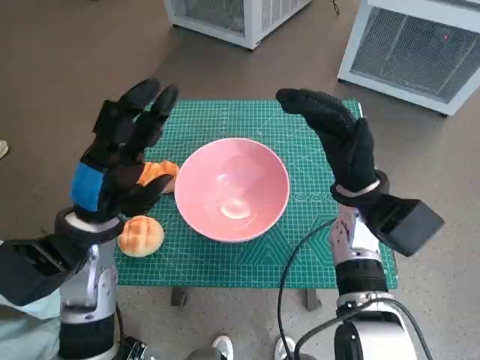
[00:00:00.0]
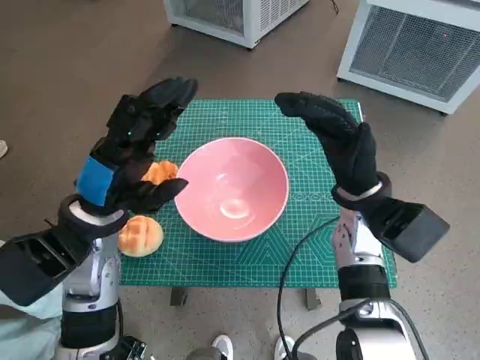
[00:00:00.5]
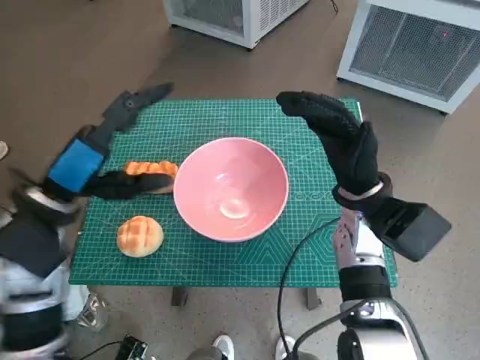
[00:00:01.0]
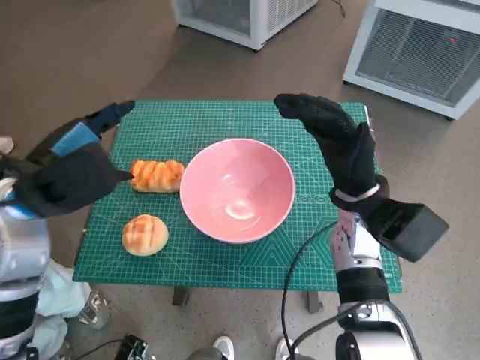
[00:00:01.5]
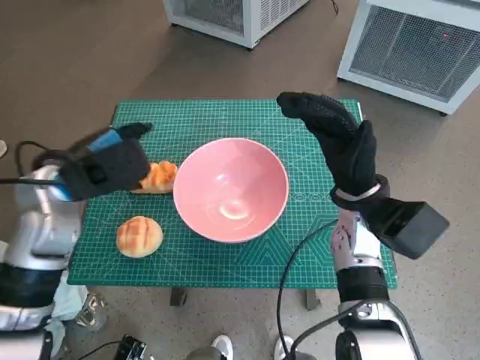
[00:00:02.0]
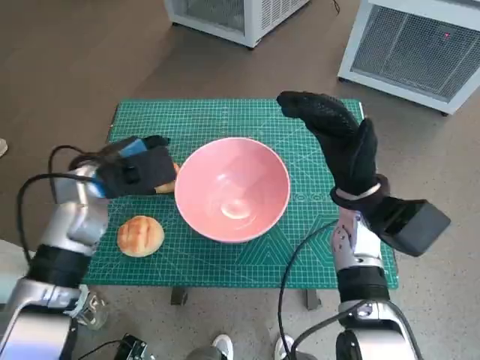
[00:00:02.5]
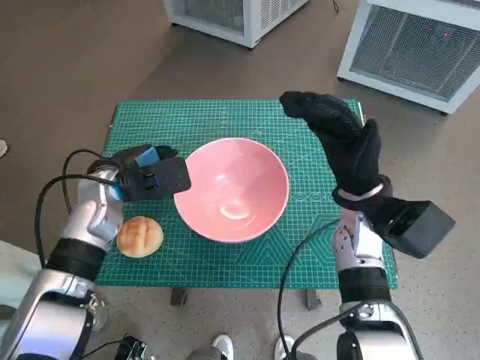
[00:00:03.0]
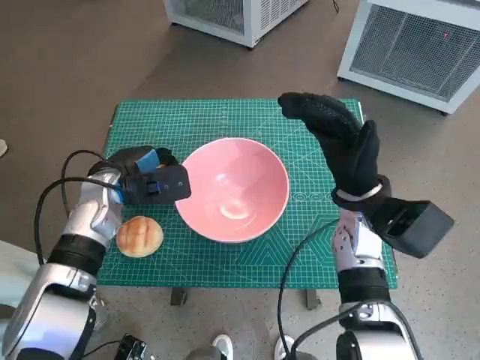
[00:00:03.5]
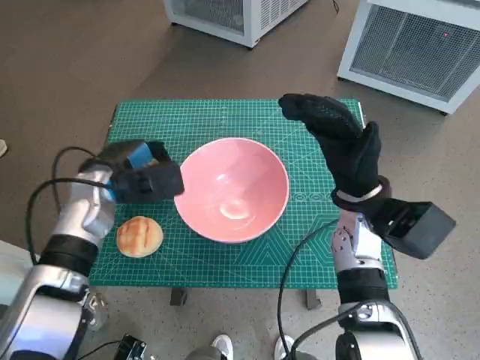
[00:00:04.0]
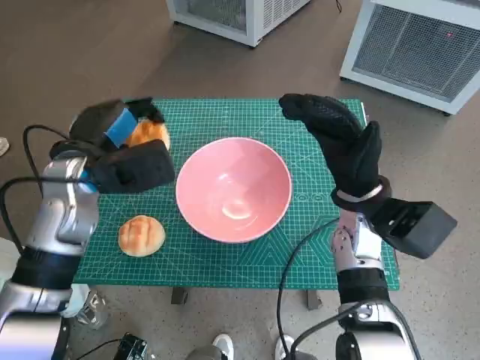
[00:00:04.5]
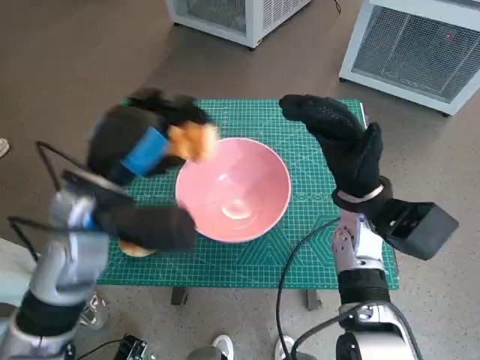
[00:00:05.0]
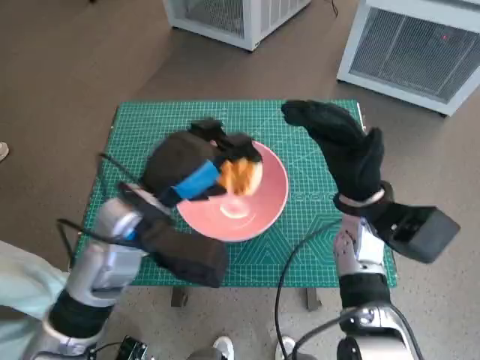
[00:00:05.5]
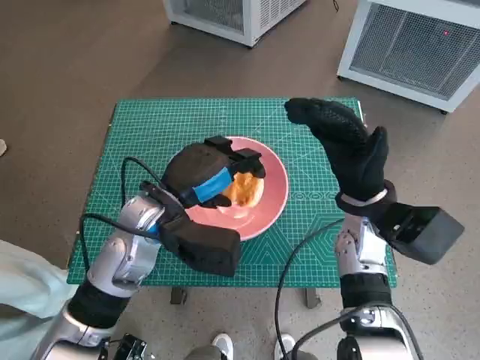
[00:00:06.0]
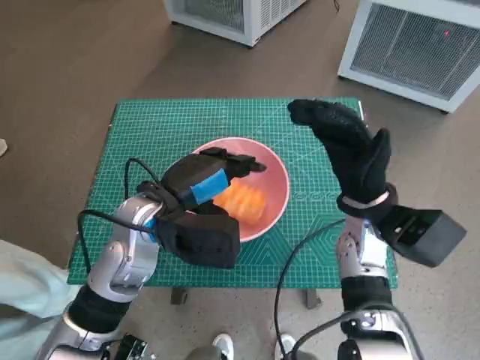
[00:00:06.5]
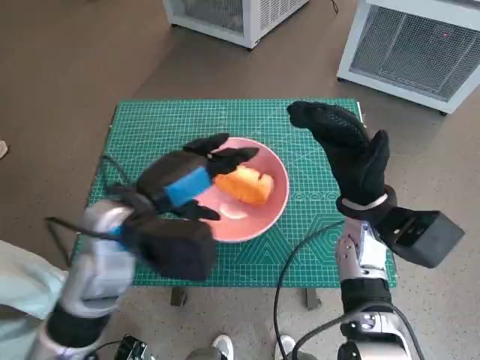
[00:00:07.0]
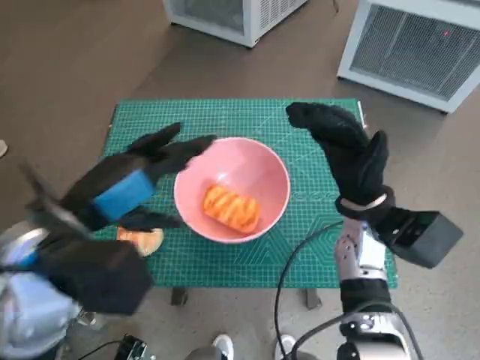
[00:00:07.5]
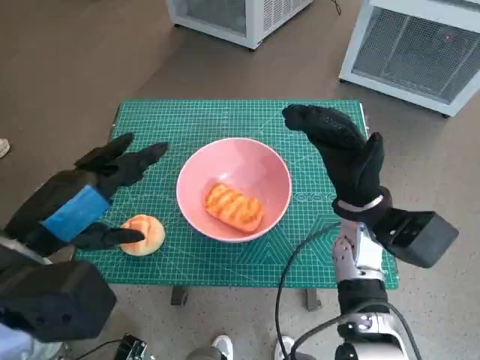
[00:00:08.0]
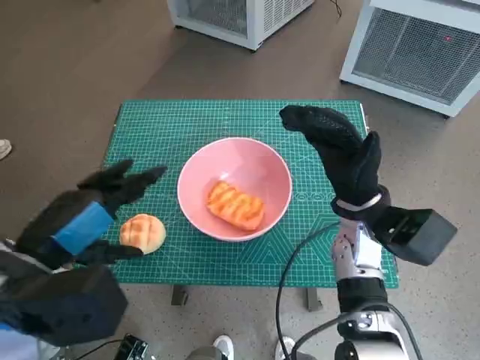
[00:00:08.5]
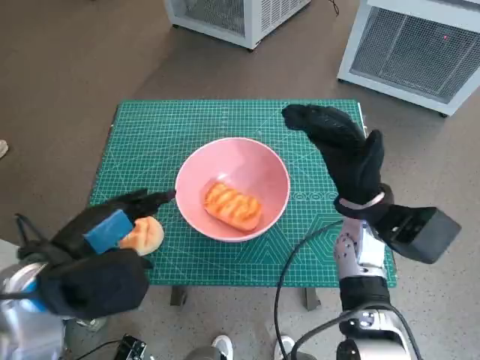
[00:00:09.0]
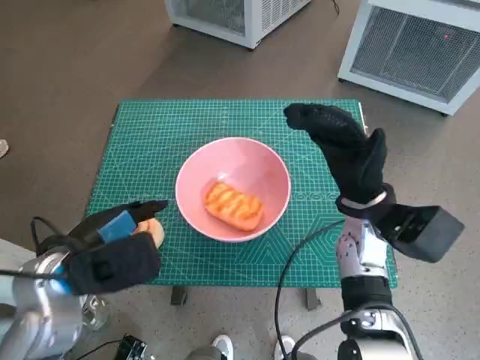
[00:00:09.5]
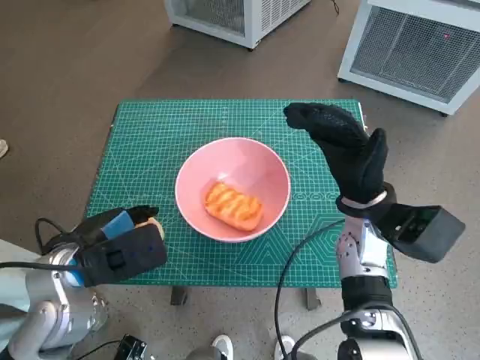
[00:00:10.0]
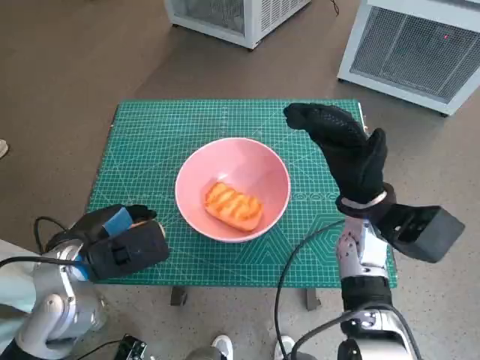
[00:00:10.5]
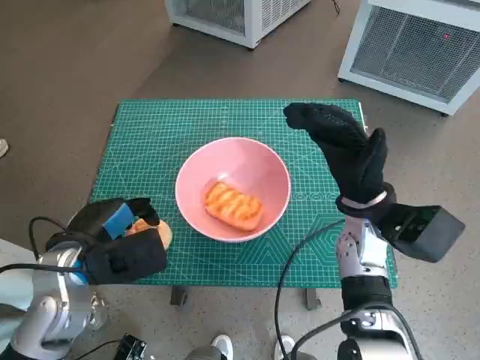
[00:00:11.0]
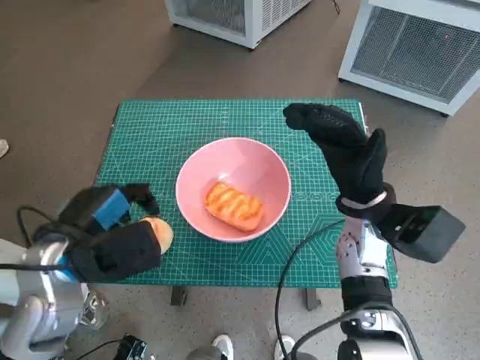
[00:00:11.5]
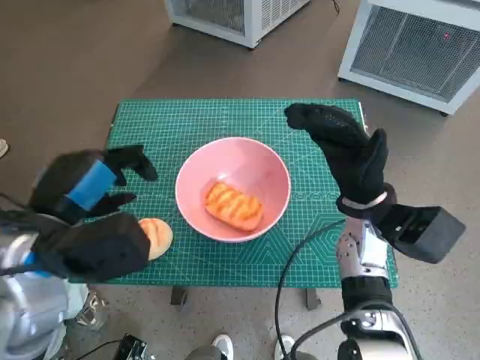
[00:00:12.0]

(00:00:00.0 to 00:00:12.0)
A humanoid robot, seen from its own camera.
Task of the whole recording: Push the bowl into the center of the table and put the bread into the bowl.
Step, 00:00:00.0 - 00:00:03.0: Grasp the long bread with left hand.
Step, 00:00:03.5 - 00:00:06.5: Place the long bread in pink bowl with left hand.
00:00:00.0 - 00:00:02.0: The left hand shifts by roughly 5 cm.
00:00:02.0 - 00:00:04.0: The left hand is displaced downward by some 10 cm.
00:00:04.0 - 00:00:06.0: The left hand travels to the right and backward by roughly 10 cm.
00:00:06.0 - 00:00:08.0: The left hand moves backward, to the left and upward, approximately 15 cm.
00:00:08.0 - 00:00:10.0: The left hand travels downward by some 10 cm.
00:00:10.0 - 00:00:12.0: The left hand is displaced upward by roughly 5 cm.

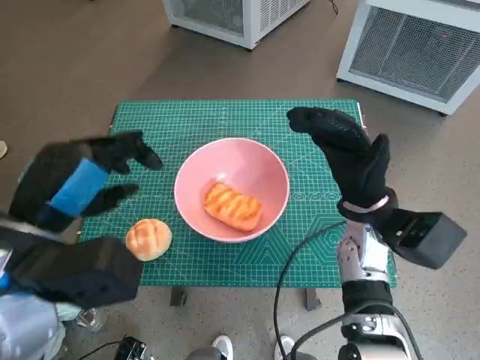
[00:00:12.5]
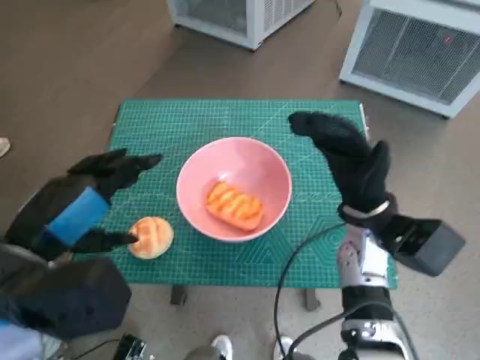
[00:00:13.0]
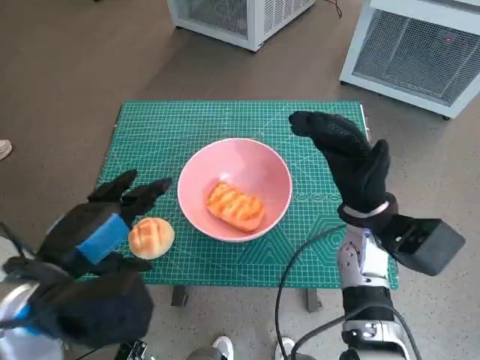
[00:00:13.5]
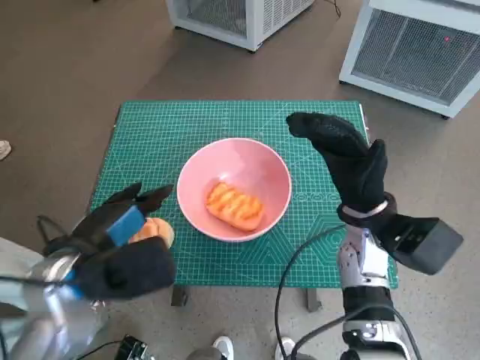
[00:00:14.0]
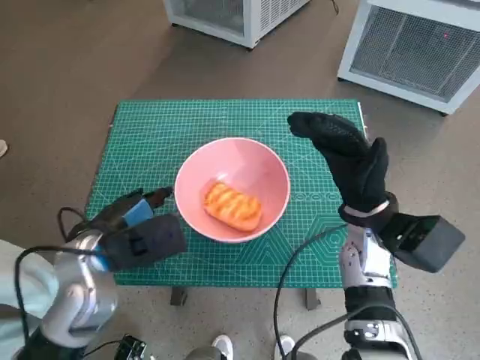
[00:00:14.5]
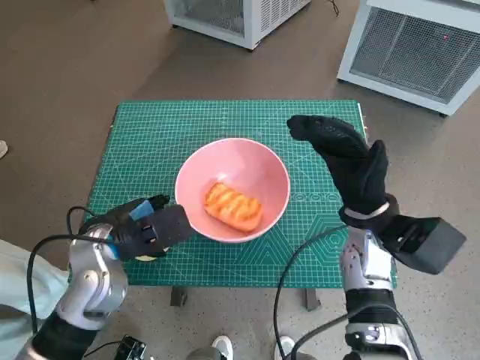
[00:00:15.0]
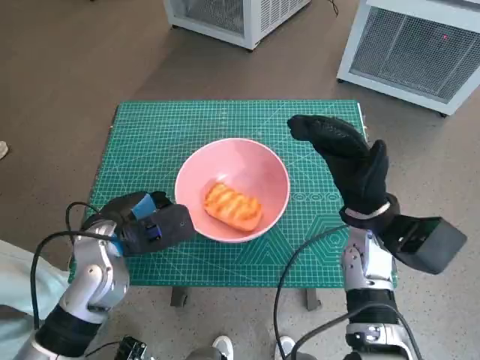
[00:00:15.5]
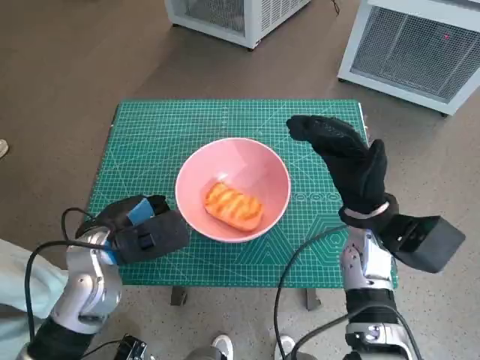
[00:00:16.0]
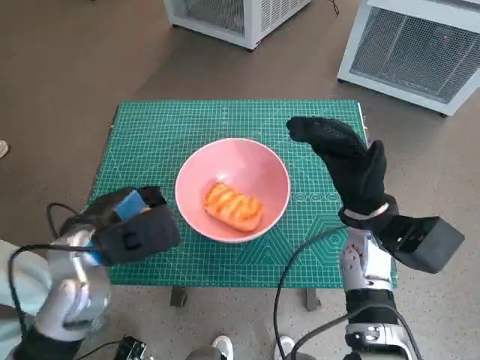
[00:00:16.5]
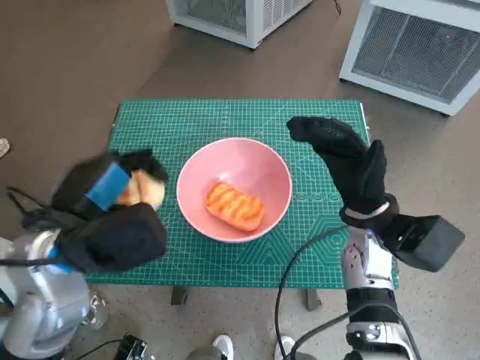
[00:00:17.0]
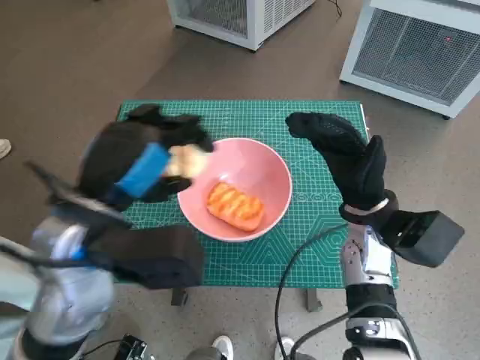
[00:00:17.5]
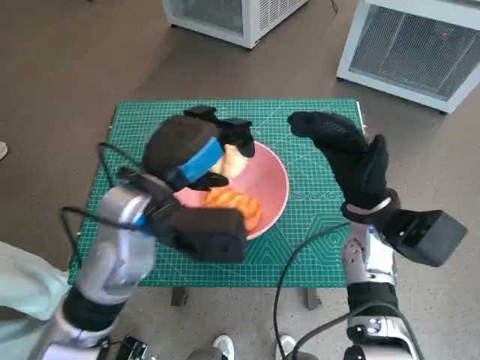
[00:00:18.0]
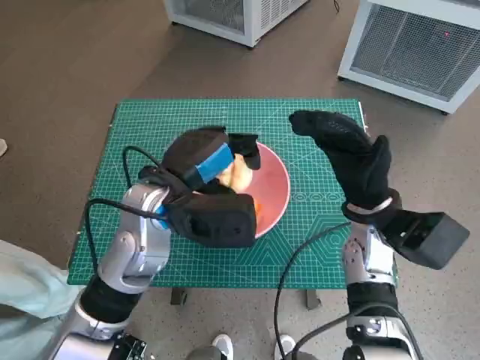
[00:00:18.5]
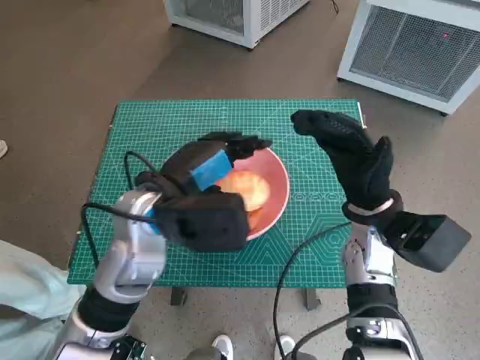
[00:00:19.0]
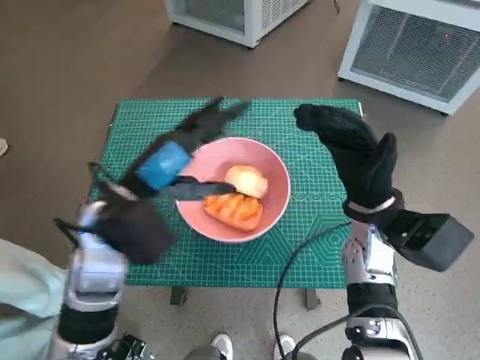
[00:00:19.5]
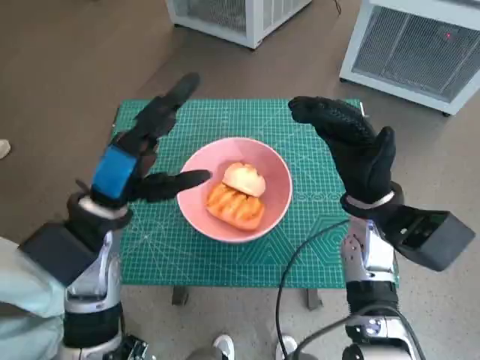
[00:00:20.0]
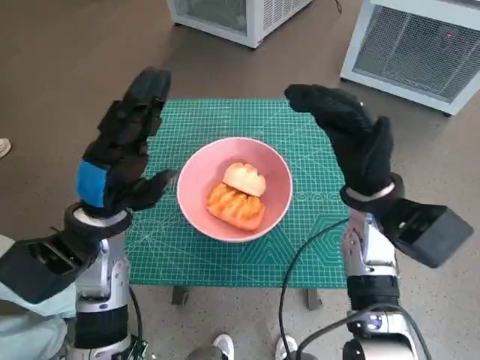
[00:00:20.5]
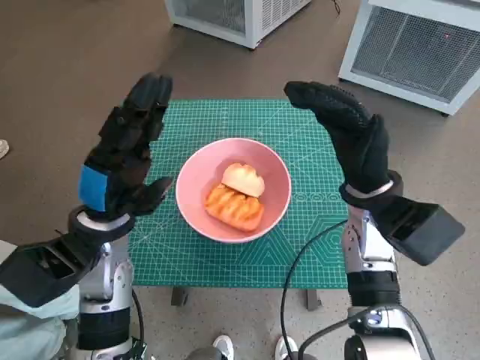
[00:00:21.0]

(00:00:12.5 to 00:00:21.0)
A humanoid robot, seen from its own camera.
Task of the whole recording: Push the bowl into the center of the table and put the bread into the bowl.
Step, 00:00:12.5 - 00:00:15.5: Grasp the round bread with left hand.
Step, 00:00:16.0 - 00:00:19.0: Place the round bread in pink bowl with left hand.
00:00:12.5 - 00:00:14.5: The left hand moves downward, some 10 cm.
00:00:14.5 - 00:00:16.5: The hands stay close to where they were, moving slightly.
00:00:16.5 - 00:00:19.0: The left hand is displaced to the right by roughly 10 cm.
00:00:19.0 - 00:00:21.0: The left hand moves to the left, approximately 5 cm.
